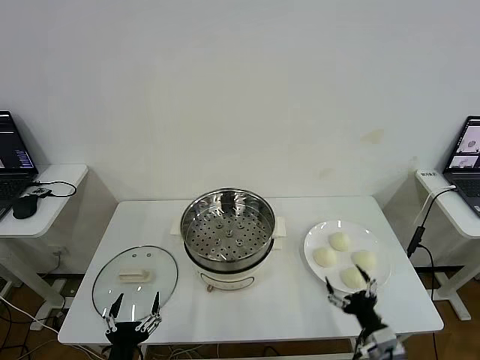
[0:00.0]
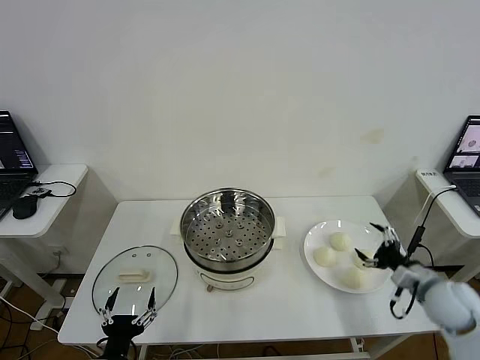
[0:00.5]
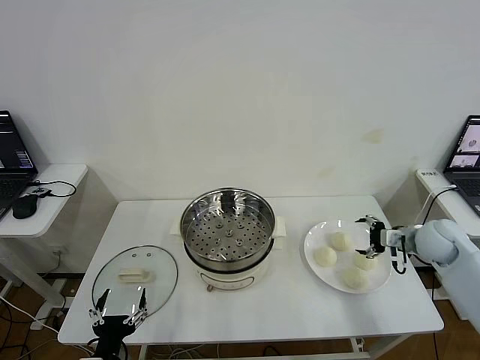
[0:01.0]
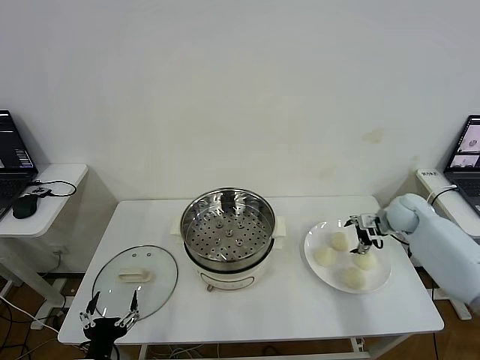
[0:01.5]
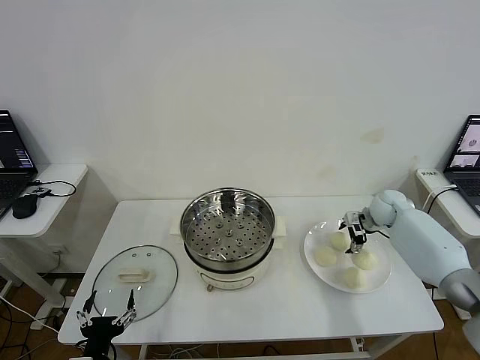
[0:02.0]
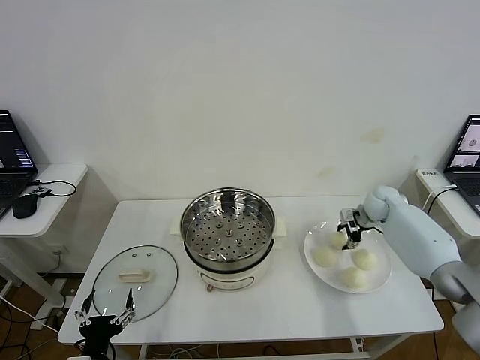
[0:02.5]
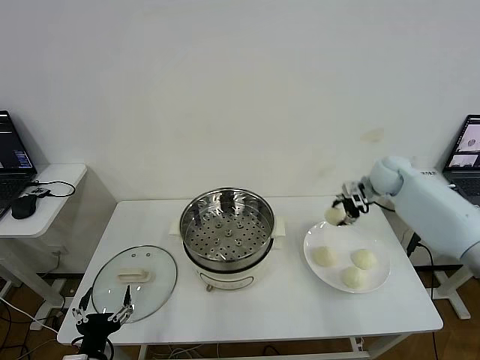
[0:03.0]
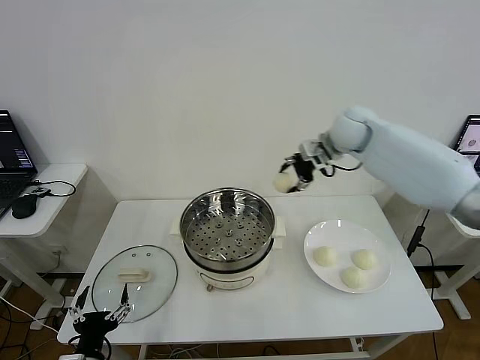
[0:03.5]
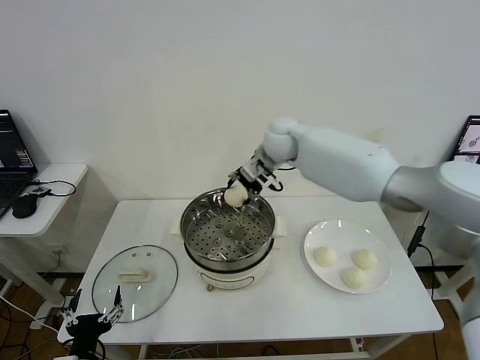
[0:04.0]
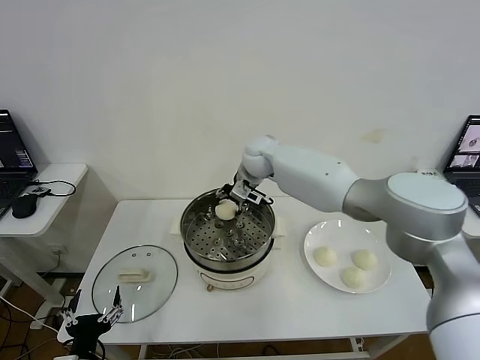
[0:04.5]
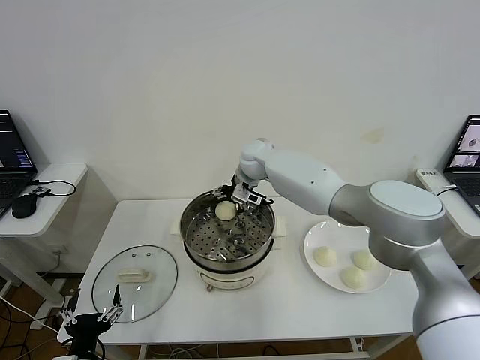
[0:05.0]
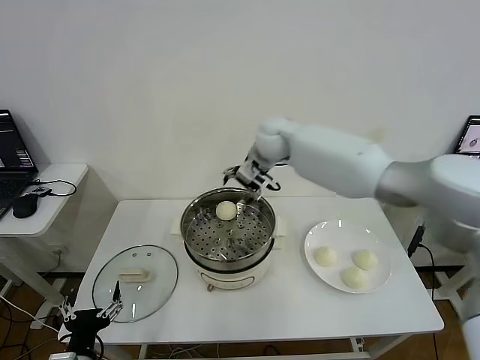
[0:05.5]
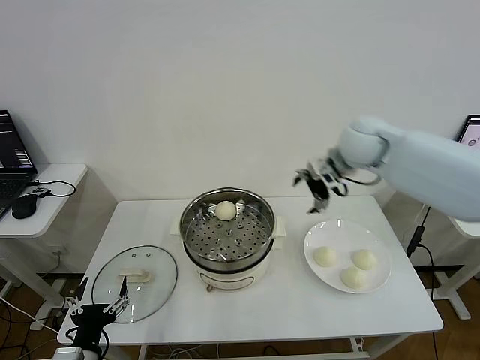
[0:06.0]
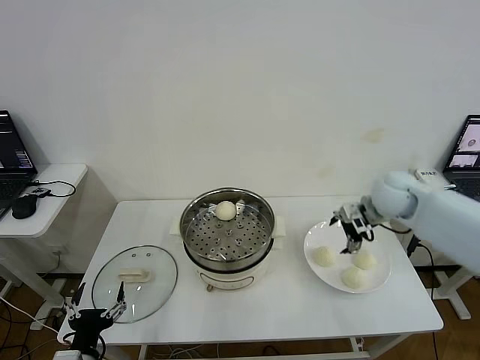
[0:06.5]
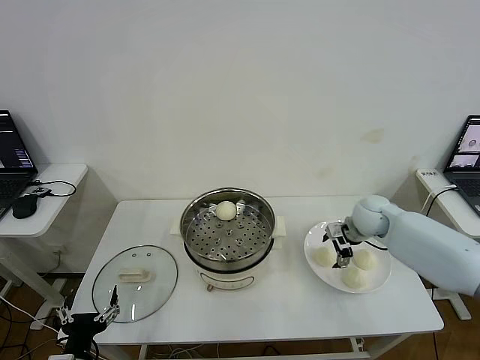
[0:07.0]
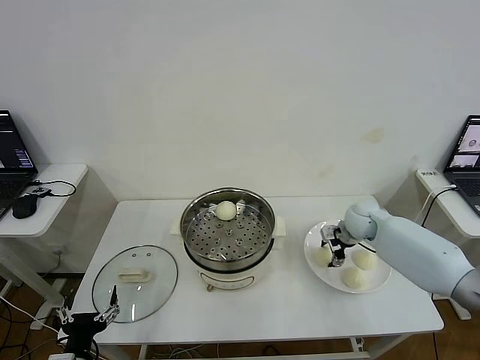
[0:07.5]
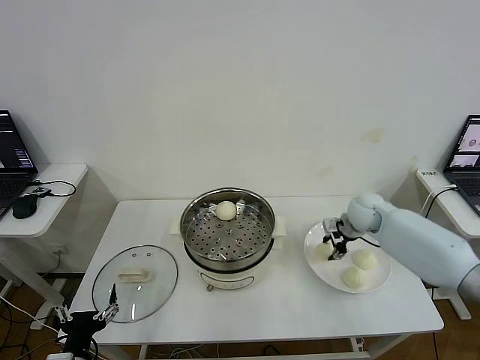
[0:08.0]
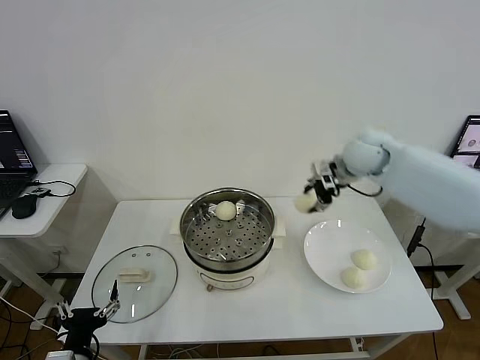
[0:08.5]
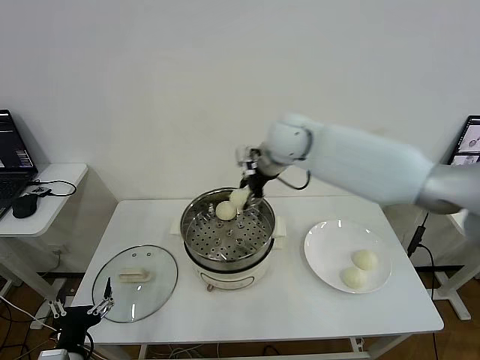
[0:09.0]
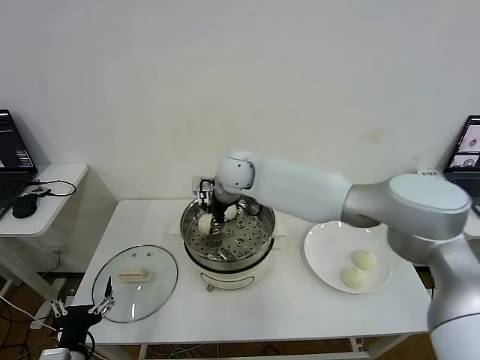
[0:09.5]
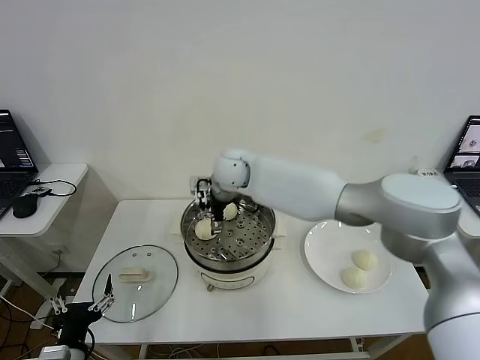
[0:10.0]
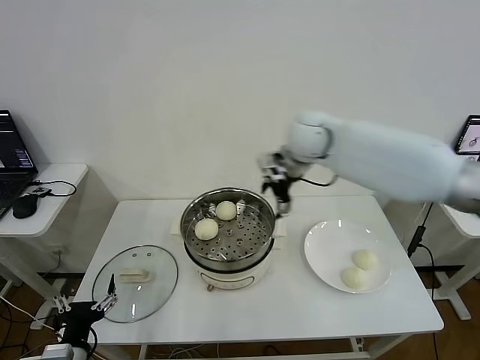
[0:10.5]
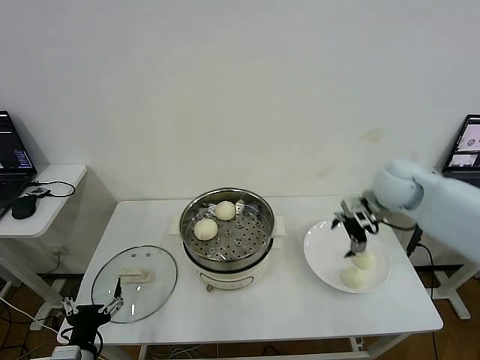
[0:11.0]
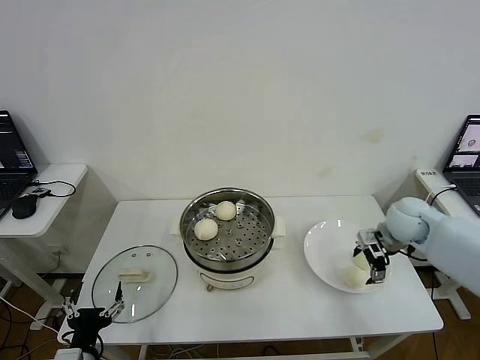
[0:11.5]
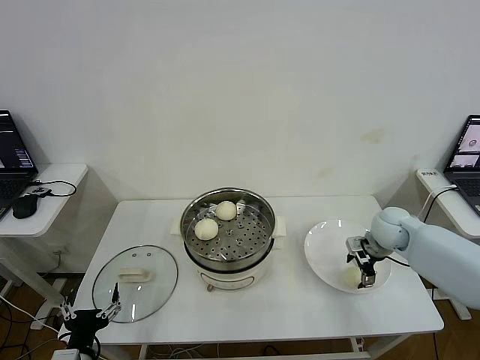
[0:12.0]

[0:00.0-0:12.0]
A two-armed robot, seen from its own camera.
Step, 0:00.0 to 0:02.5: Grasp the baozi in the plate with right gripper.
Step, 0:03.0 to 0:04.5: Place the baozi on the steamer with right gripper.
Step, 0:05.5 to 0:07.5: Grasp the baozi in the plate with right gripper.
Step, 0:08.0 to 0:09.5: Place the baozi on the steamer with right gripper.
0:02.0 to 0:04.0: The right gripper travels to the left and upward by approximately 35 cm, and closes up.
0:04.0 to 0:06.0: The right gripper shifts roughly 20 cm to the right and backward, and opens its fingers.
0:06.0 to 0:08.0: The right gripper is displaced downward by roughly 15 cm, and closes its fingers.
0:08.0 to 0:10.0: The right gripper travels to the left by some 30 cm, and opens its fingers.
0:10.0 to 0:12.0: The right gripper heads to the right and downward, covering approximately 40 cm.

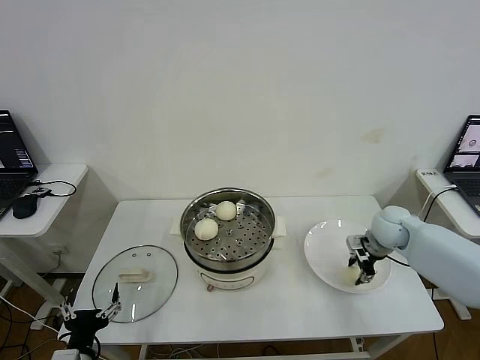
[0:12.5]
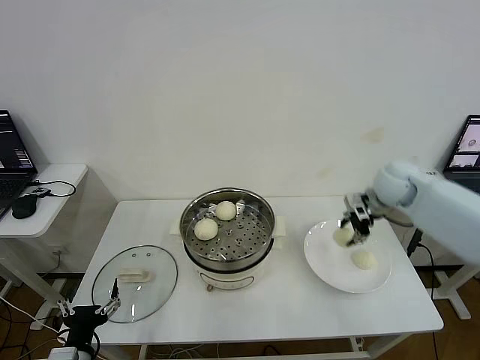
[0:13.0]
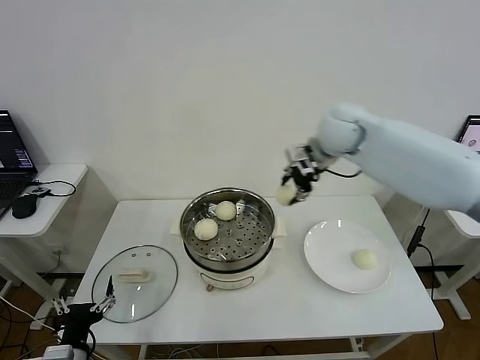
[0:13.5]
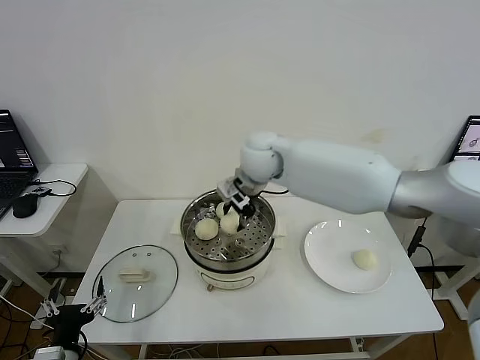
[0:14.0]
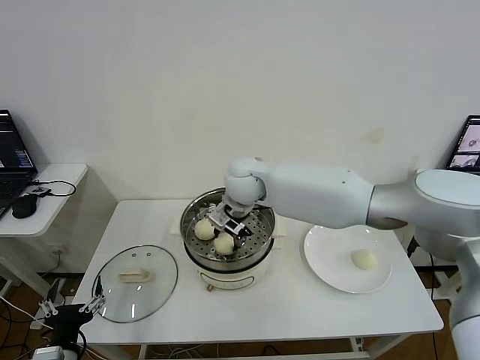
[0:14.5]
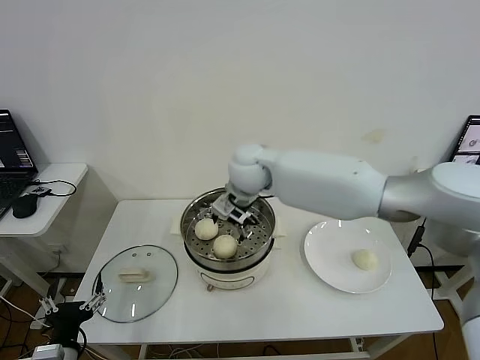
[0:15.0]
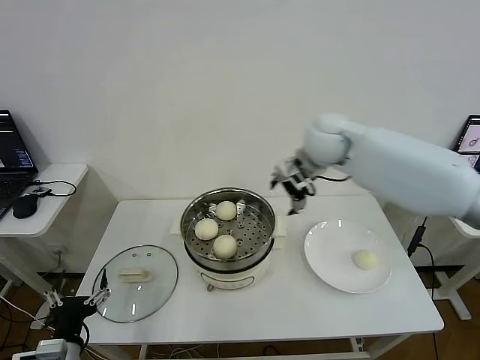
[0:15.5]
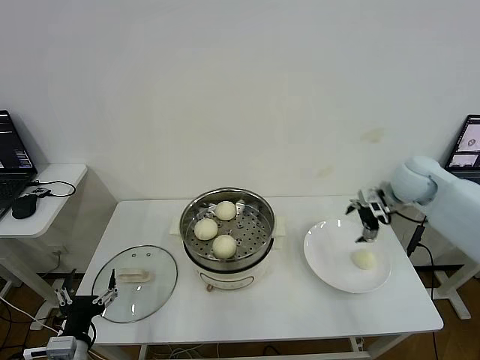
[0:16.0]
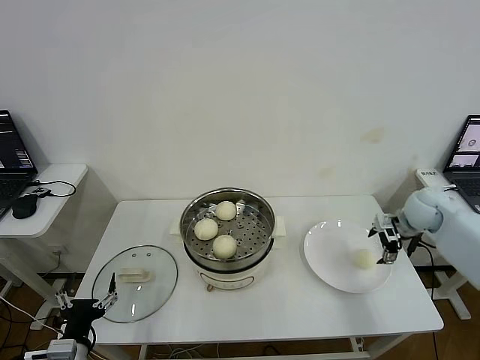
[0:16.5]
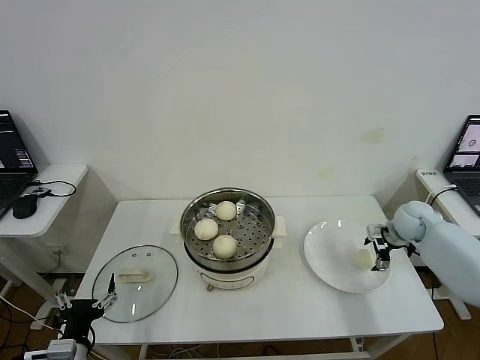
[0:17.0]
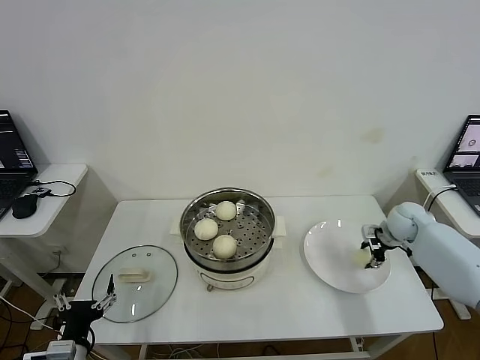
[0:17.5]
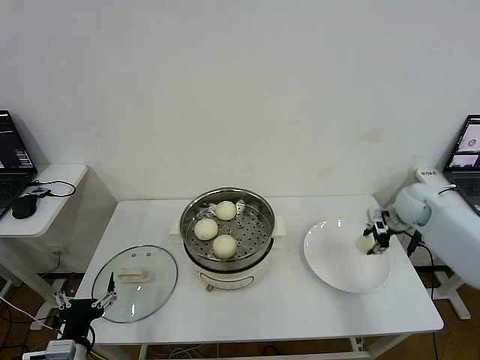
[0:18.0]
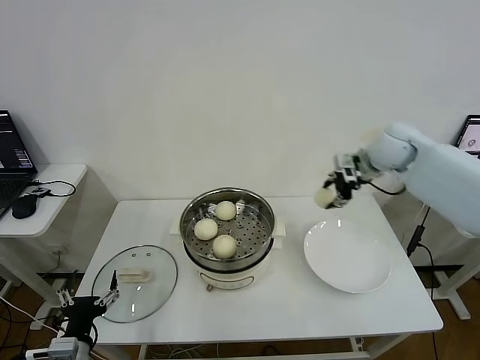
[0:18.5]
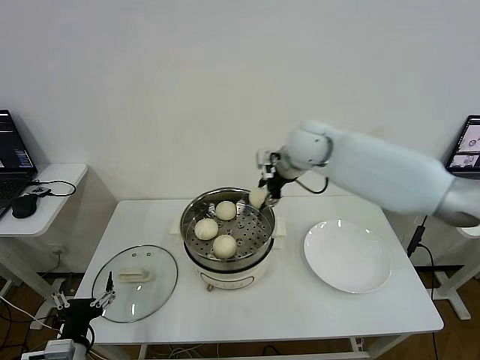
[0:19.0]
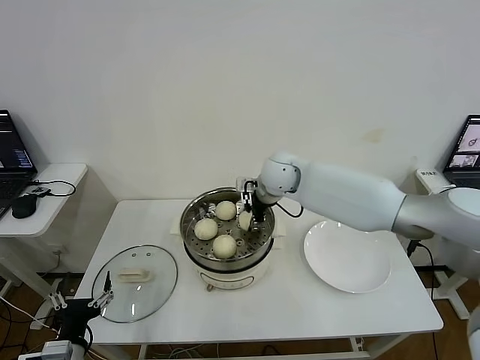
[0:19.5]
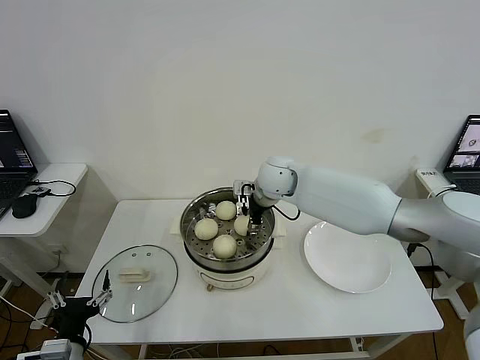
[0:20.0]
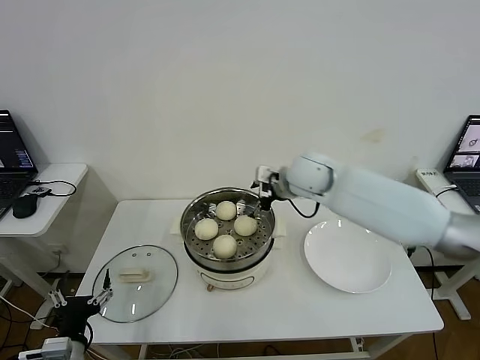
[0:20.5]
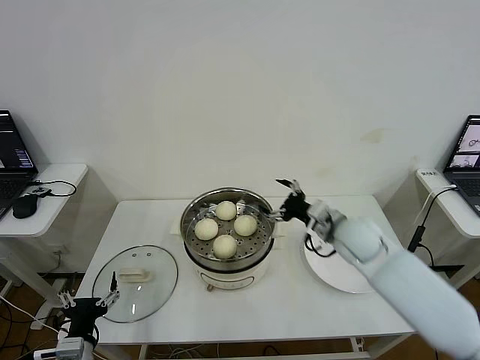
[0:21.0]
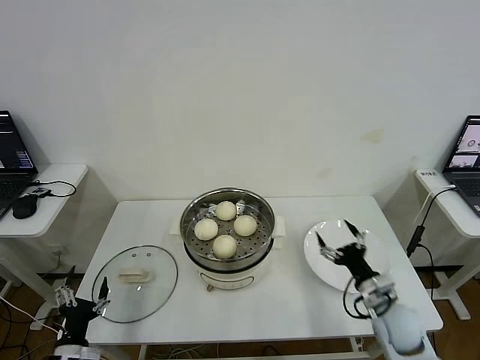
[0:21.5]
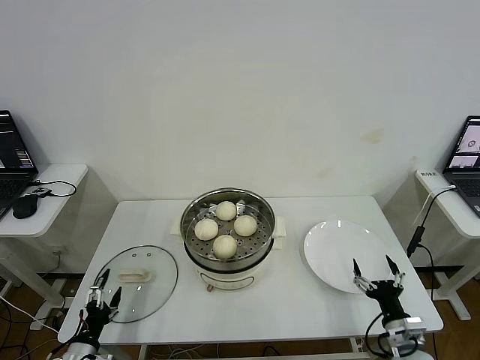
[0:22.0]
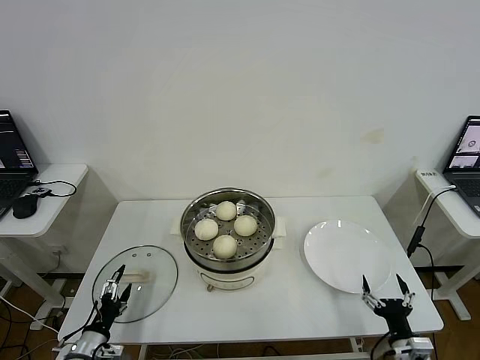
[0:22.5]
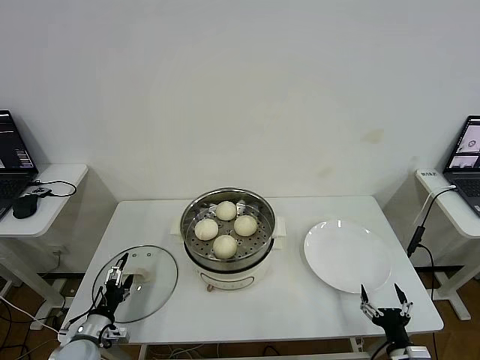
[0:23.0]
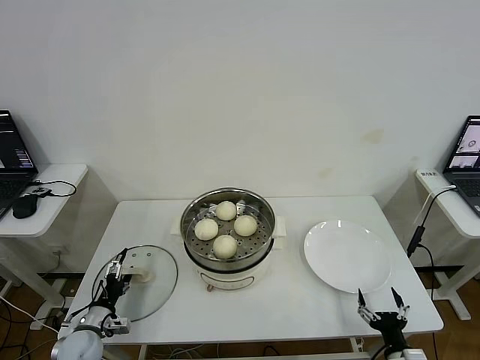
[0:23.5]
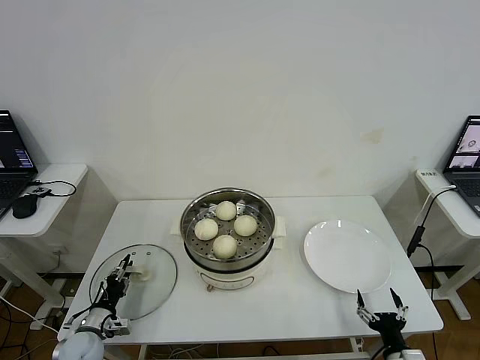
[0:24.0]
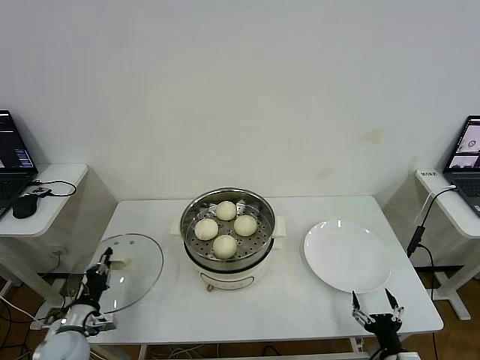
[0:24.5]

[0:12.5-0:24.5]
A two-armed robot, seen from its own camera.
Step, 0:12.5 to 0:14.5: Place the baozi on the steamer with right gripper.
Step, 0:15.0 to 0:17.5: Grasp the baozi in the plate with right gripper.
Step, 0:18.0 to 0:20.0: Place the baozi on the steamer with right gripper.
Step, 0:20.5 to 0:24.0: Grasp the pot lid with left gripper.
0:12.5 to 0:14.5: The right gripper is displaced to the left by some 35 cm.
0:14.5 to 0:16.5: The right gripper moves to the right, some 40 cm, and opens.
0:16.5 to 0:18.5: The right gripper travels upward and to the left by about 20 cm, and closes.
0:18.5 to 0:20.5: The right gripper travels to the left by about 15 cm, and opens.
0:20.5 to 0:22.5: The left gripper moves downward, some 10 cm; the right gripper goes about 50 cm backward, downward and to the right.
0:22.5 to 0:24.5: The left gripper shifts approximately 5 cm forward, and closes up.

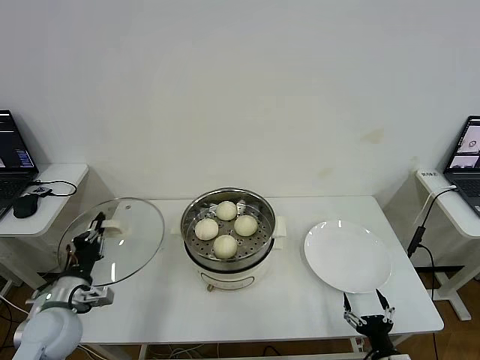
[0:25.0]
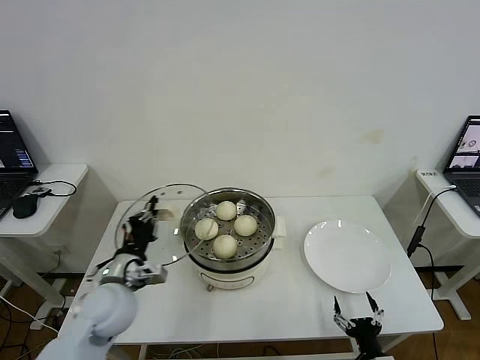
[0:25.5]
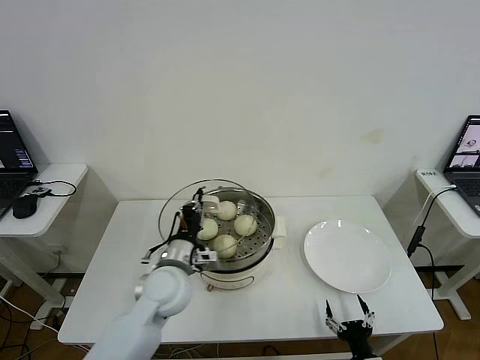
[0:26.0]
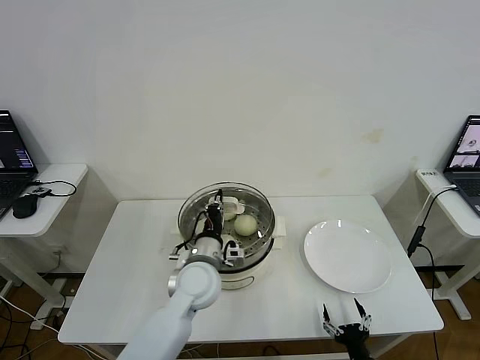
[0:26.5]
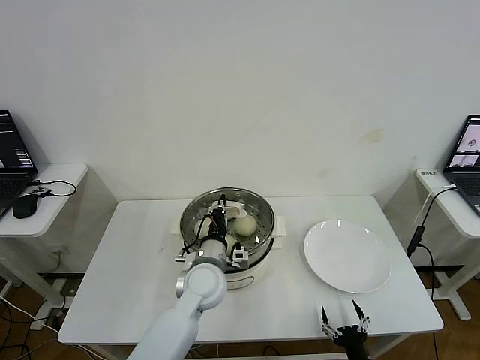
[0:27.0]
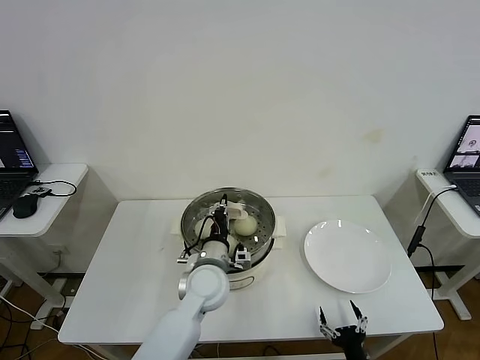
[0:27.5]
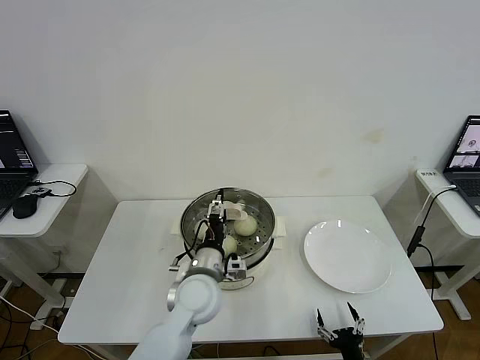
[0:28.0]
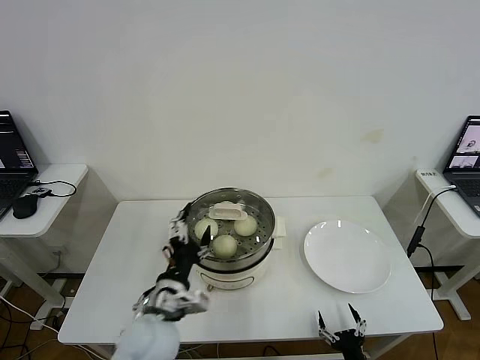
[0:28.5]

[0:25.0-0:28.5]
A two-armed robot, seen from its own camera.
Step, 0:25.0 to 0:27.5: Place the pot lid on the steamer with left gripper.
0:25.0 to 0:27.0: The left gripper shifts roughly 30 cm to the right. The right gripper shifts by some 5 cm.
0:27.0 to 0:28.5: The left gripper travels backward and to the left by roughly 15 cm, and opens its fingers.
